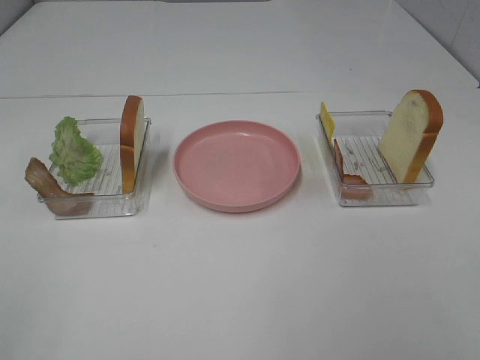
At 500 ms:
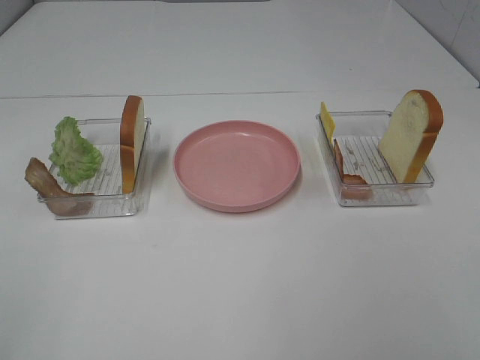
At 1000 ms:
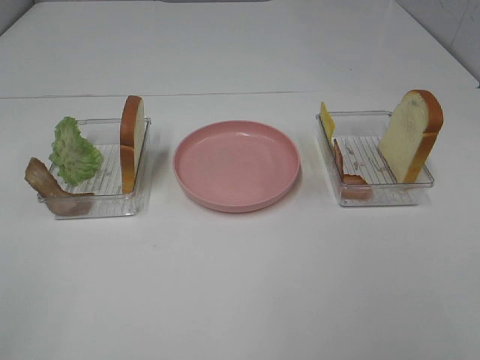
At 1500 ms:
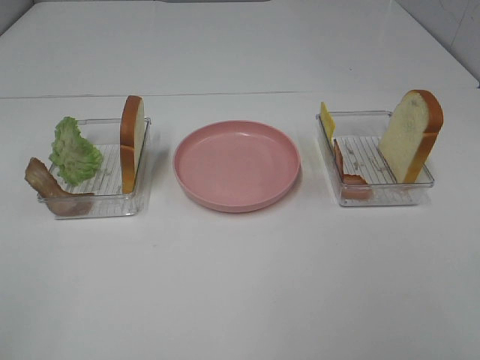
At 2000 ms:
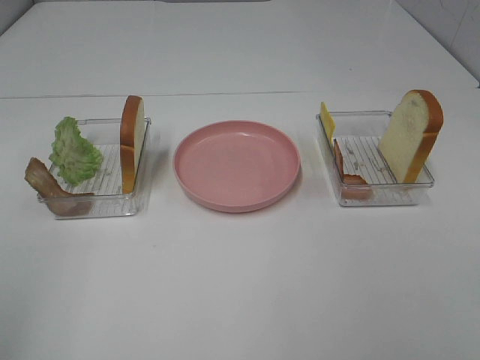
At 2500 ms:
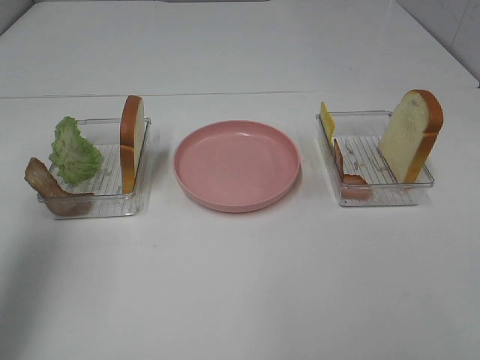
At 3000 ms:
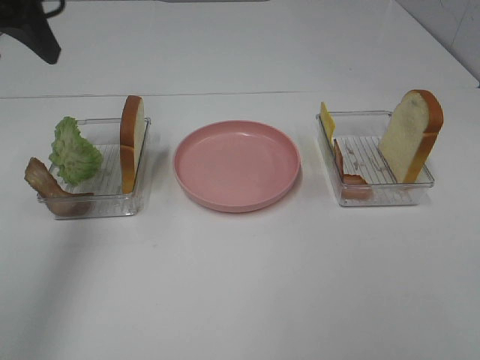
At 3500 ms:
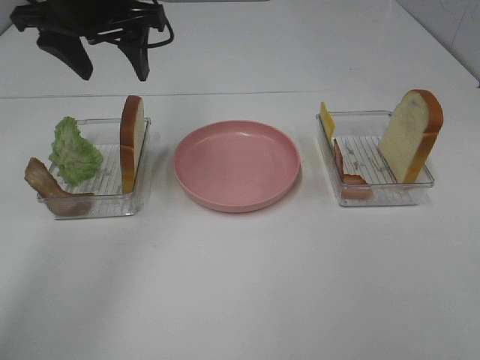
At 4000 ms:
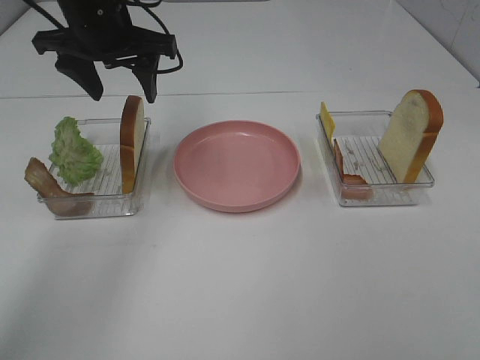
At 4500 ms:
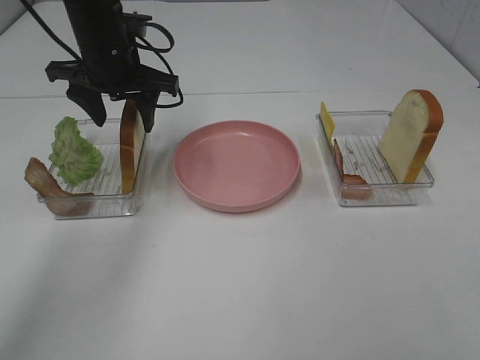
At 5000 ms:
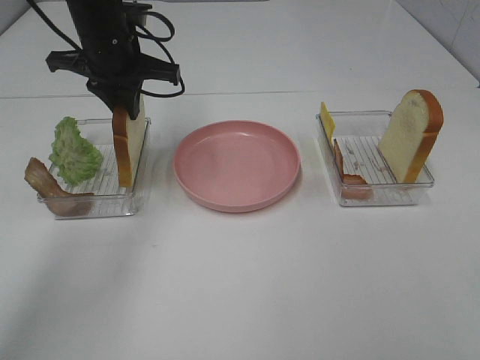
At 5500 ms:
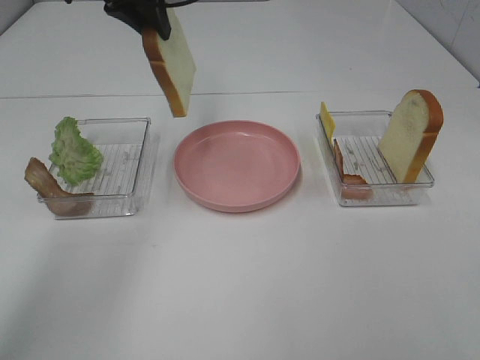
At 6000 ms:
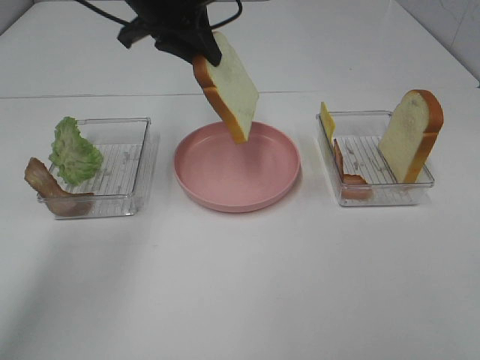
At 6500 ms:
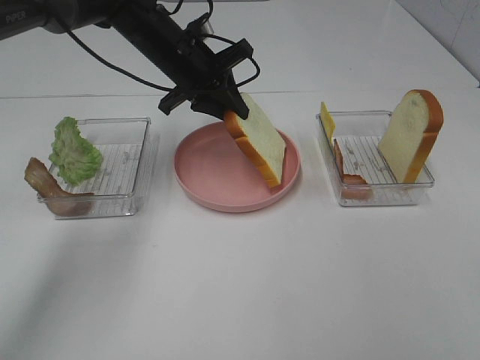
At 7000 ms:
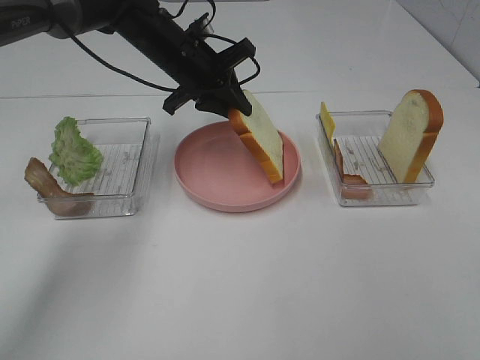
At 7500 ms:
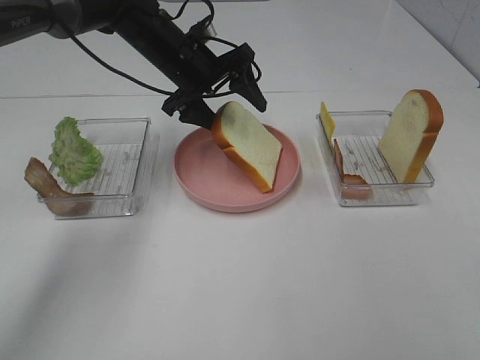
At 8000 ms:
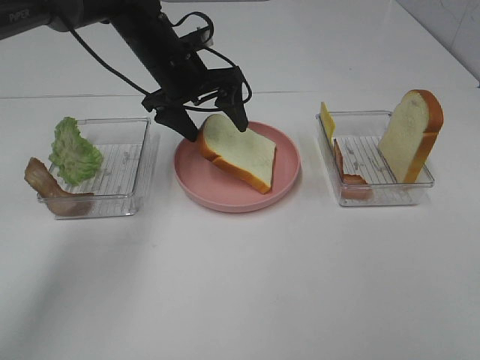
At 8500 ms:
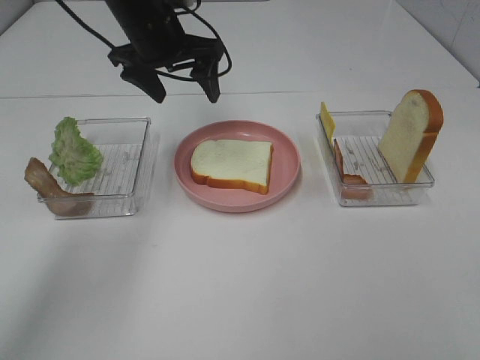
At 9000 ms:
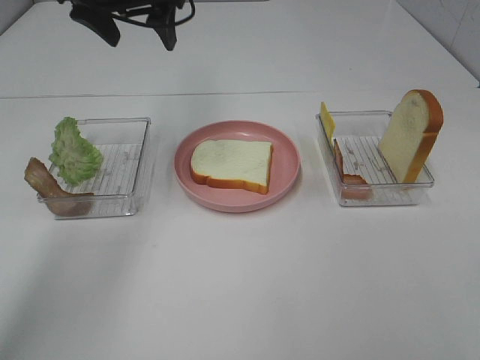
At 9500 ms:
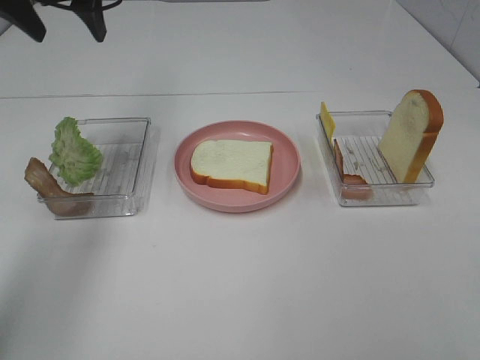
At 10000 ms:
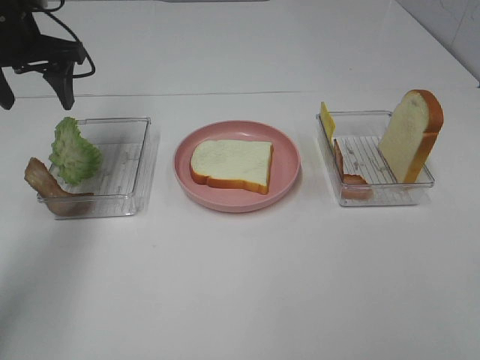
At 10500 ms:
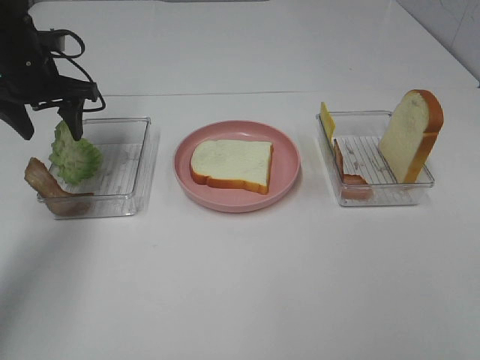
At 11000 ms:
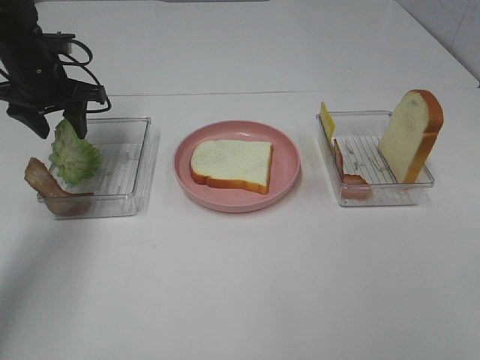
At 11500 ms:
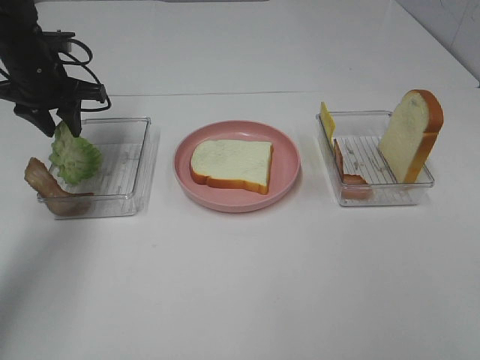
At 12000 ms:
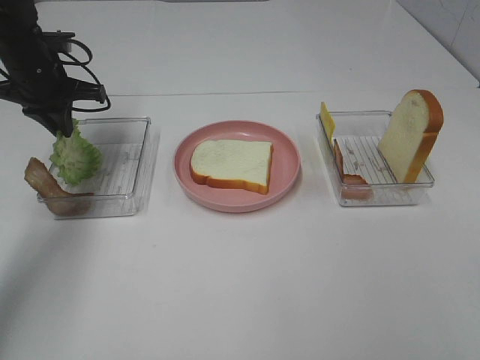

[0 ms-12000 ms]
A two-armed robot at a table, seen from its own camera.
Task of the whole recording: Make sandwiches.
Step, 0 ms to 5000 ms: Left hand:grab the bread slice.
Step, 5500 ms to 8000 ms: Left hand:place the bread slice on the plate.
2000 ms to 4000 ms: The left gripper moves forward and to the right, some 40 cm.
4000 ms to 6000 ms: The left gripper swings up and down, about 10 cm each way, with 2 reversals, and closes up.
6000 ms to 8000 ms: The left gripper shifts roughly 10 cm downward, and opens up.
8000 ms to 10000 ms: The left gripper heads to the left, covering about 15 cm.
10000 ms to 12000 ms: The left gripper shifts roughly 5 cm downward, and closes.

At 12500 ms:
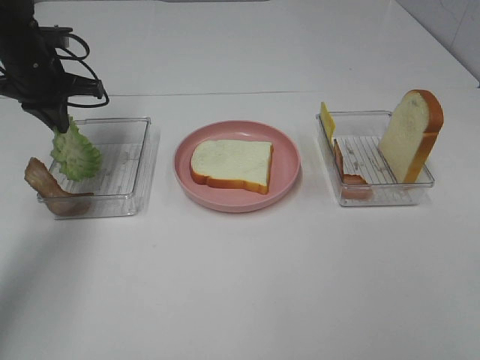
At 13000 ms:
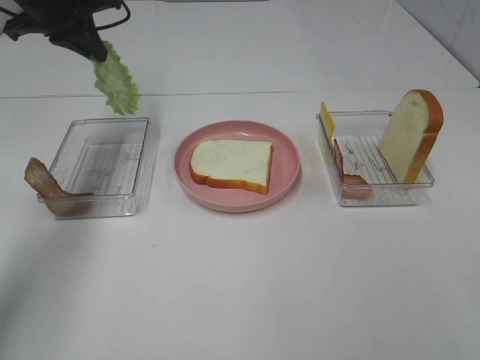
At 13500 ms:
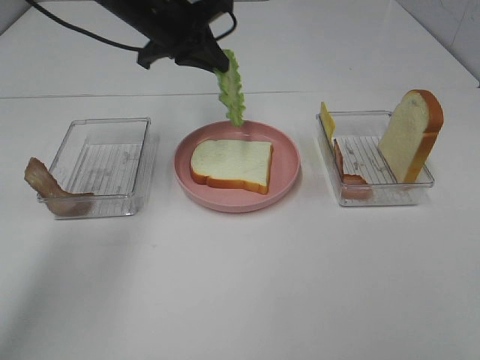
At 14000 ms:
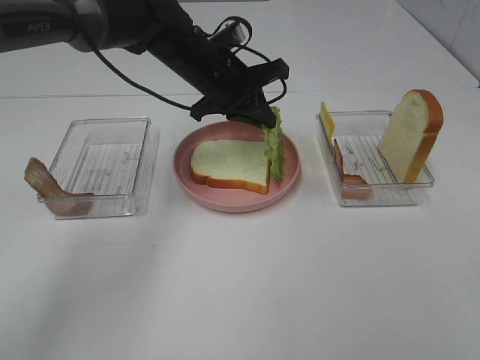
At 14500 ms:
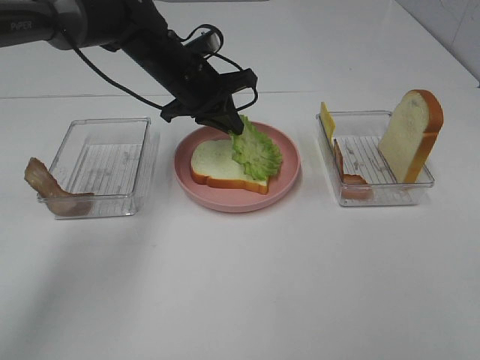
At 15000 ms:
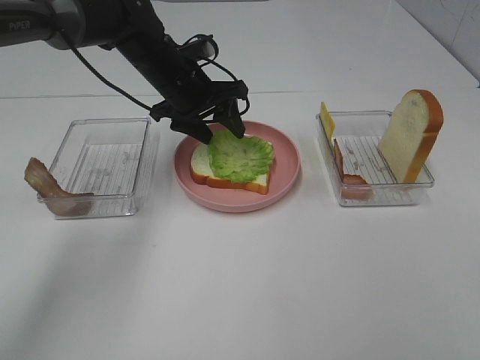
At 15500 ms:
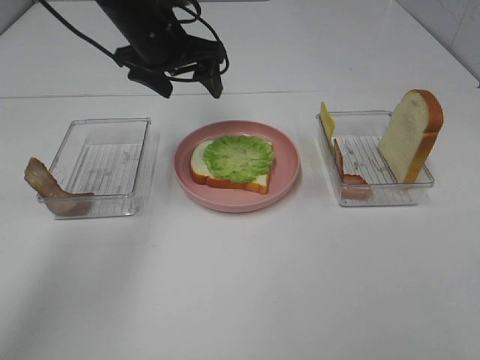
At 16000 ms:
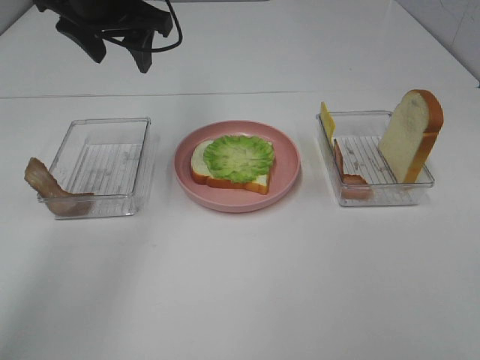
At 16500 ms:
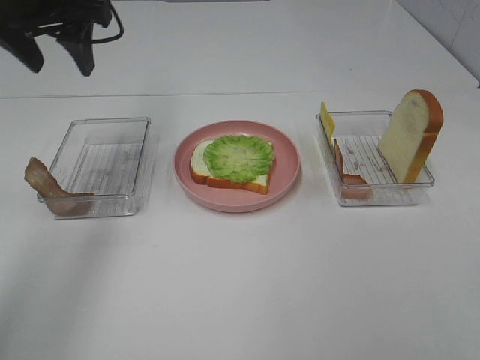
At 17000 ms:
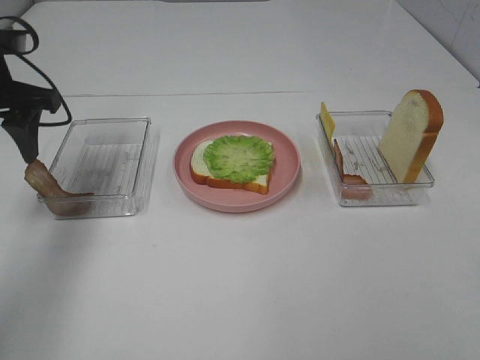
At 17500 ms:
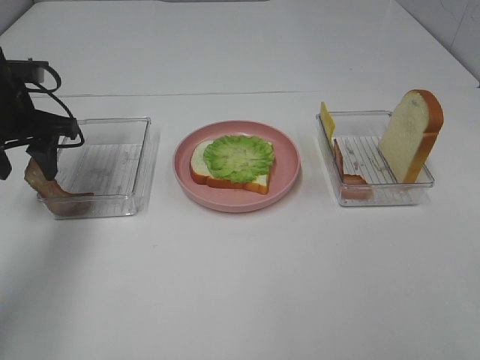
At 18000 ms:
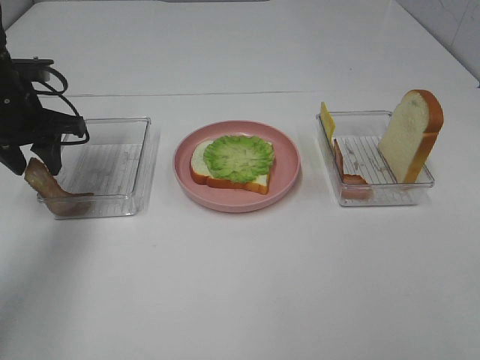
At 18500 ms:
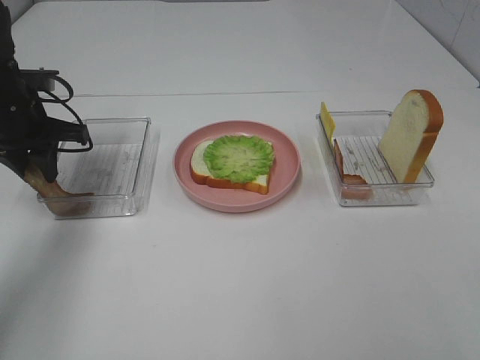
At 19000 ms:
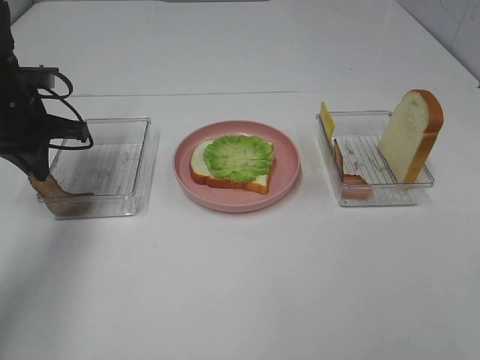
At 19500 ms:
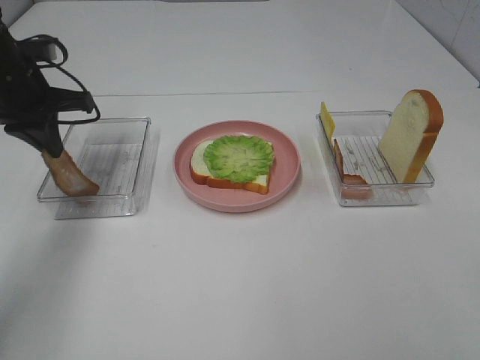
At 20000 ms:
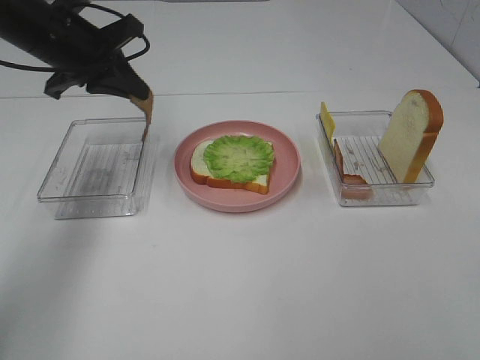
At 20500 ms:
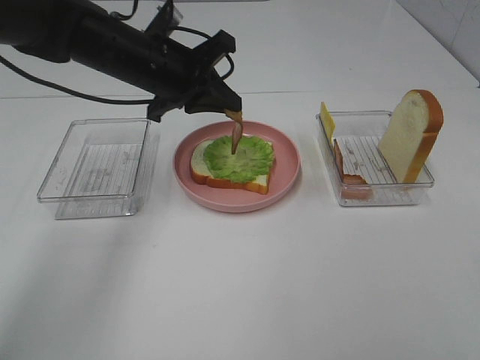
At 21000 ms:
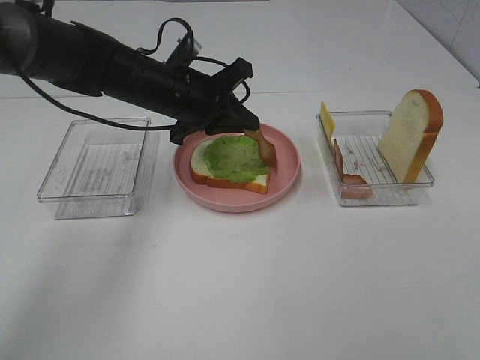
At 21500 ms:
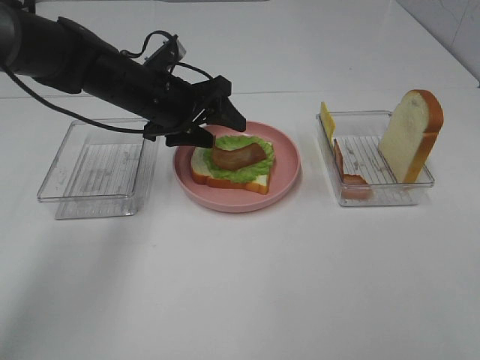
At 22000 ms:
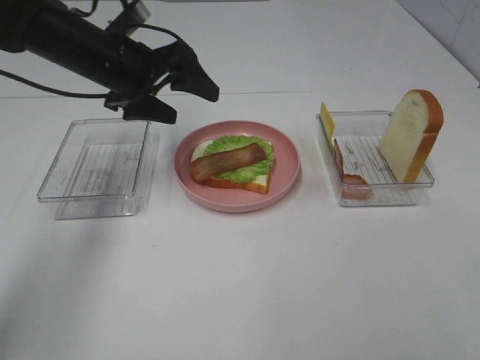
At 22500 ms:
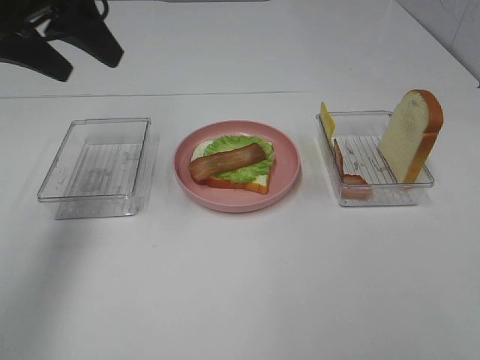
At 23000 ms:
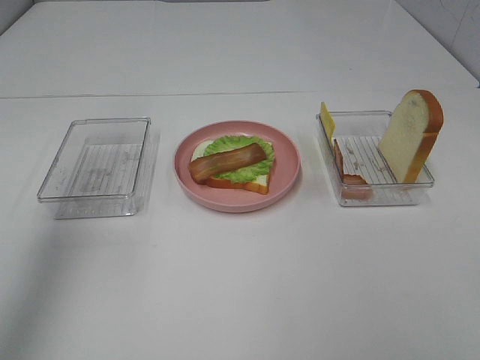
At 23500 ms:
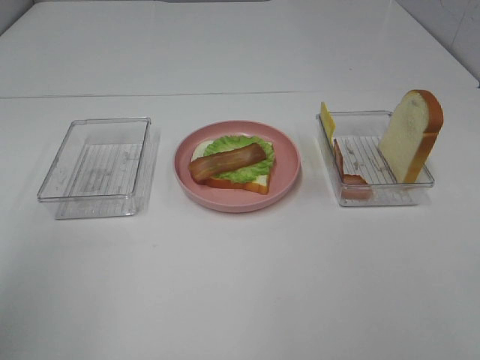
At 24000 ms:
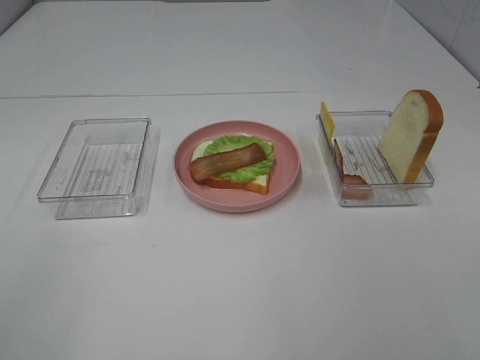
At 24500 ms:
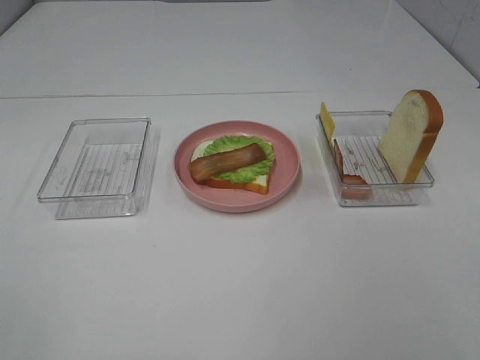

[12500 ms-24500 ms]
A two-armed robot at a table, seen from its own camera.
Task of the whole recording: Make sandwiches.
Step, 13000 ms to 15000 ms: Left hand:place the lettuce slice on the bread slice.
Step, 15500 ms to 19000 ms: Left hand:grab the bacon.
Step, 19500 ms to 21500 ms: Left hand:place bacon on lettuce slice.
12500 ms to 14500 ms: The left gripper moves to the right, approximately 20 cm.
14500 ms to 16500 ms: The left gripper moves upward, to the left and backward, some 20 cm, and opens.
16500 ms to 18500 ms: The left gripper is displaced downward by about 15 cm, and closes its fingers.
18500 ms to 20500 ms: The left gripper shifts about 15 cm to the right, and closes.
20500 ms to 22500 ms: The left gripper travels to the left, upward and backward by some 20 cm, and opens up.
22500 ms to 24500 ms: The left gripper heads backward, covering roughly 35 cm.

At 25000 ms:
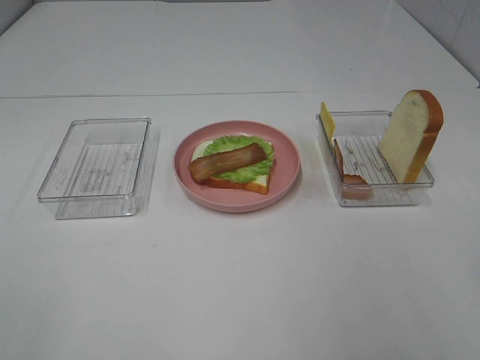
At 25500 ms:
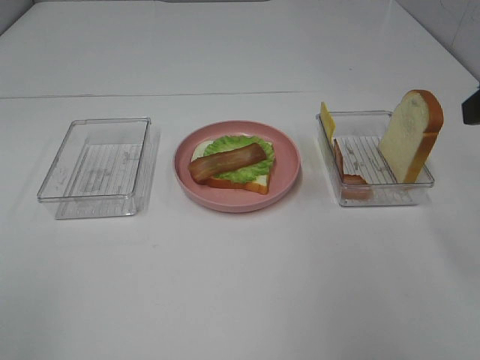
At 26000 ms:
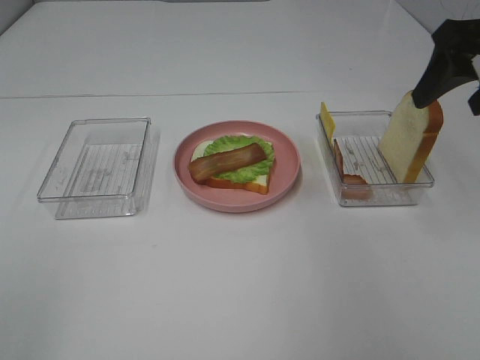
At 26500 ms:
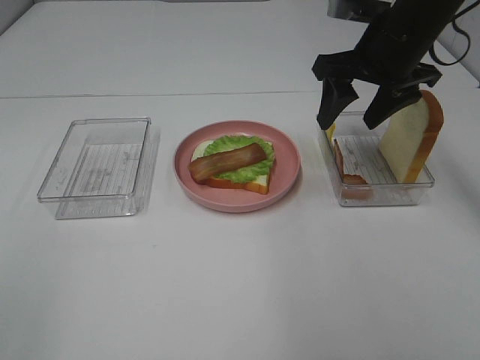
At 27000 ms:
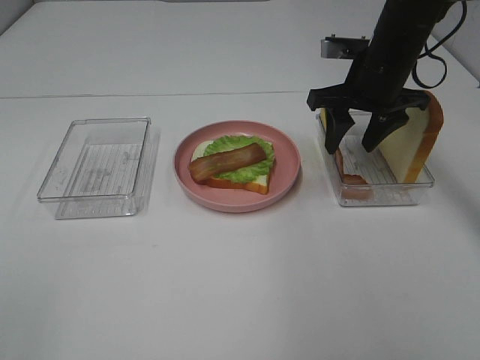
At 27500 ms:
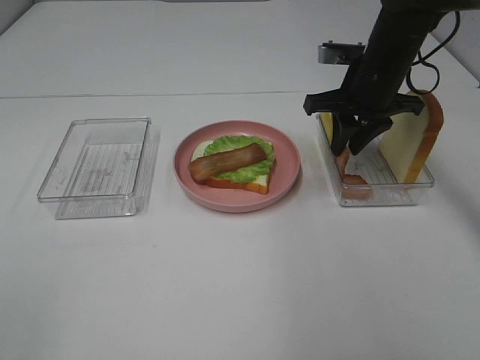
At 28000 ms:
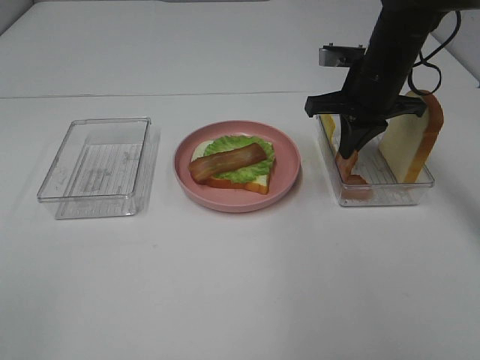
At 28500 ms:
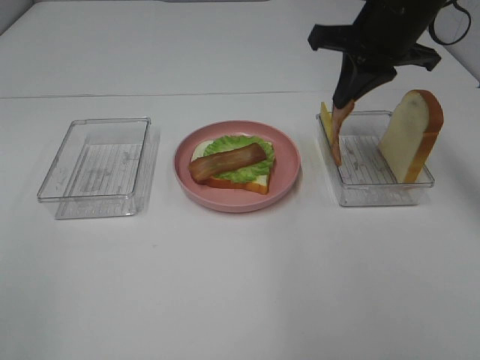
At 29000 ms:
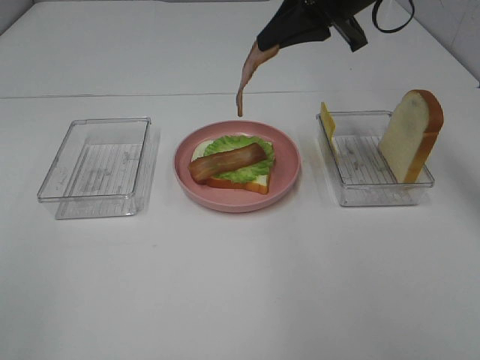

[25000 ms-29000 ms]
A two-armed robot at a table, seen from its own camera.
Task of the whole recording: Make sandwiches.
Step, 25000 ms to 27500 ms: Right hand:grab the bacon.
25000 ms to 27000 ms: The right gripper goes roughly 35 cm forward.
27000 ms to 29000 ms: The right gripper is displaced upward by roughly 10 cm, and closes its fingers.
